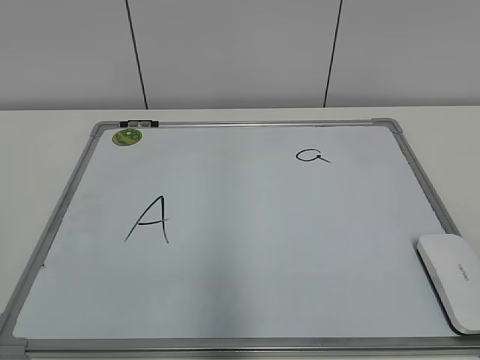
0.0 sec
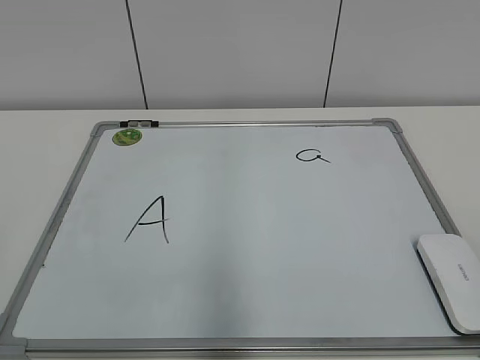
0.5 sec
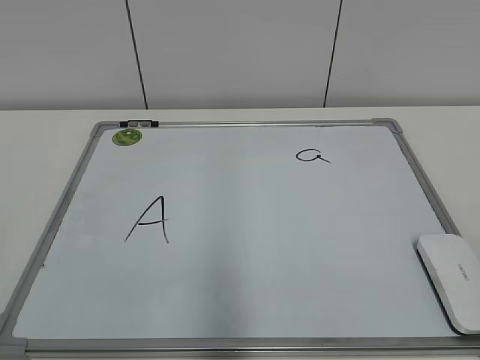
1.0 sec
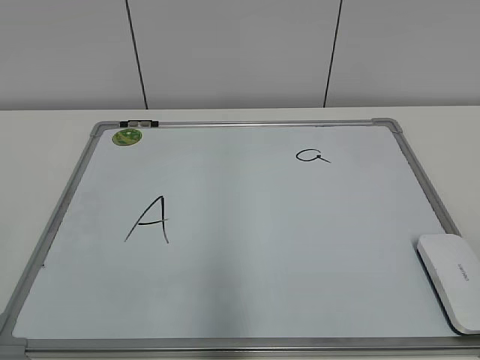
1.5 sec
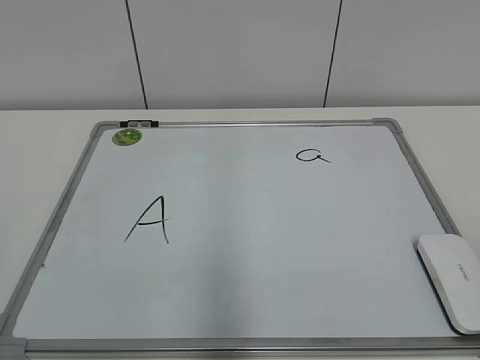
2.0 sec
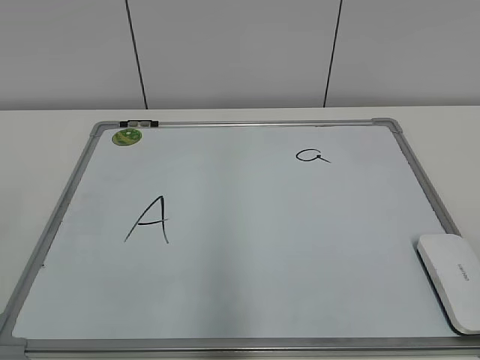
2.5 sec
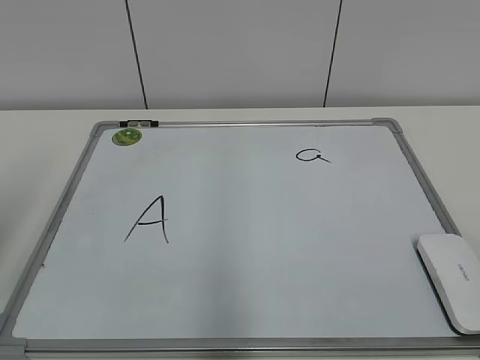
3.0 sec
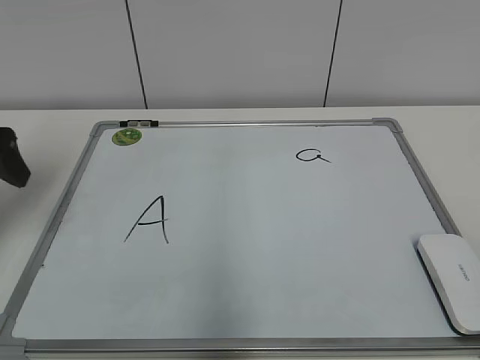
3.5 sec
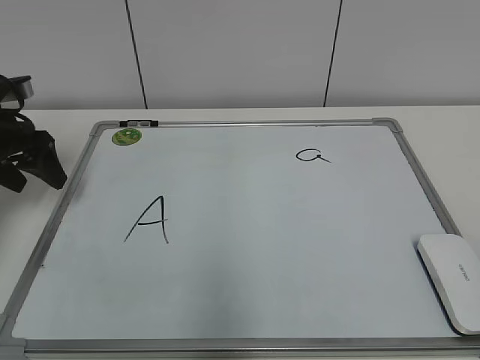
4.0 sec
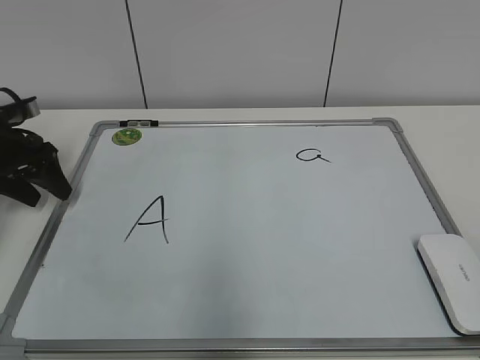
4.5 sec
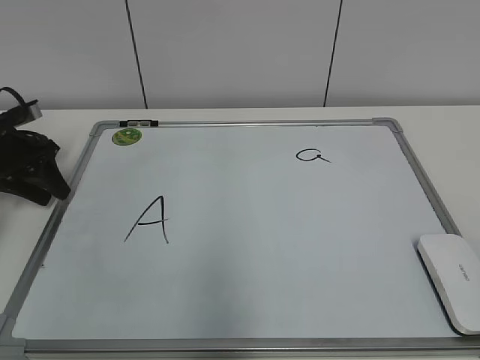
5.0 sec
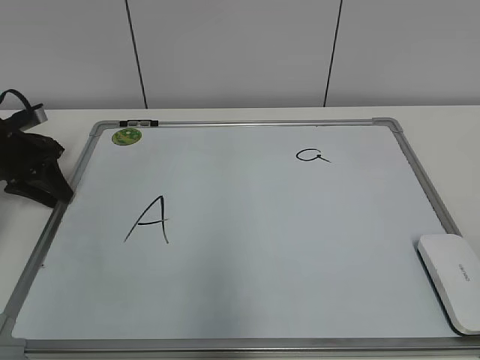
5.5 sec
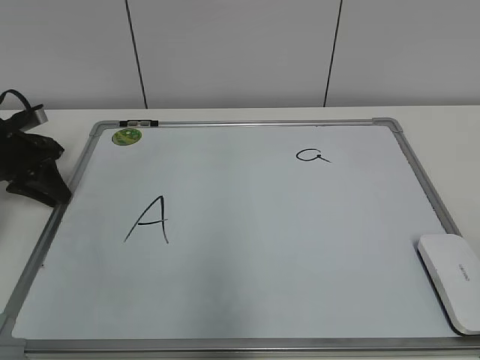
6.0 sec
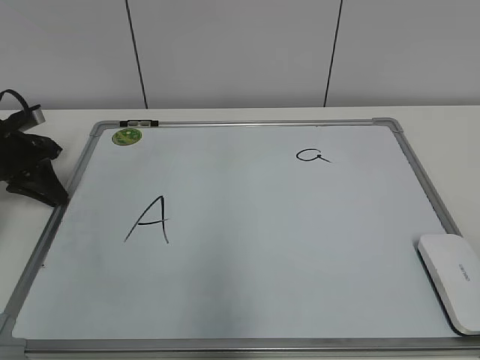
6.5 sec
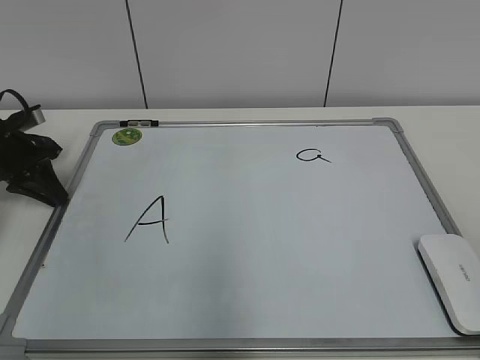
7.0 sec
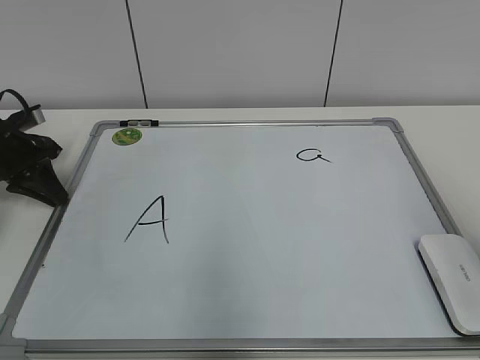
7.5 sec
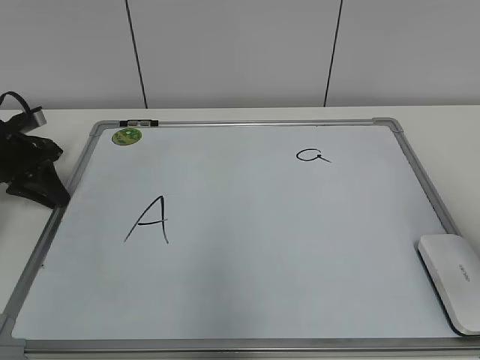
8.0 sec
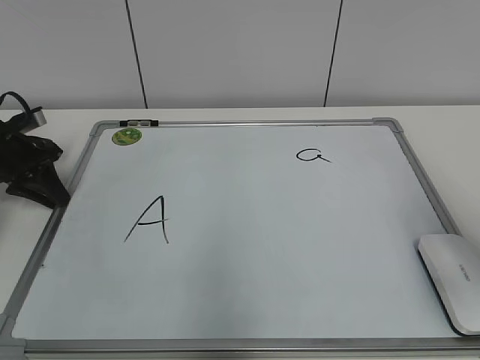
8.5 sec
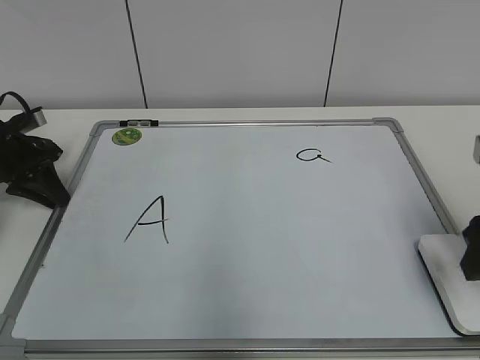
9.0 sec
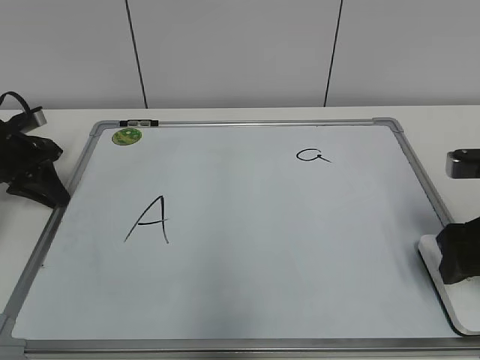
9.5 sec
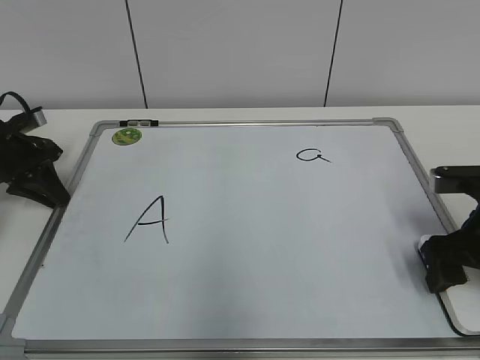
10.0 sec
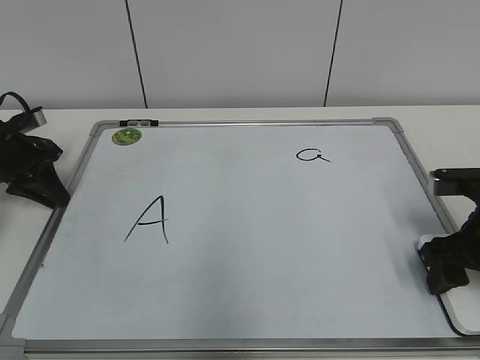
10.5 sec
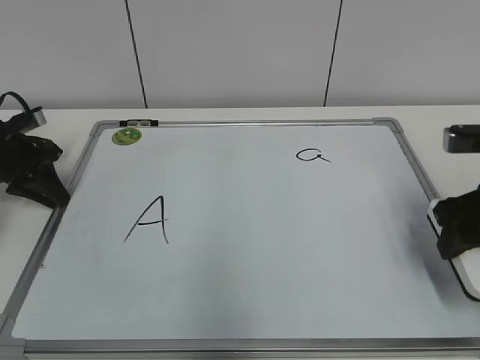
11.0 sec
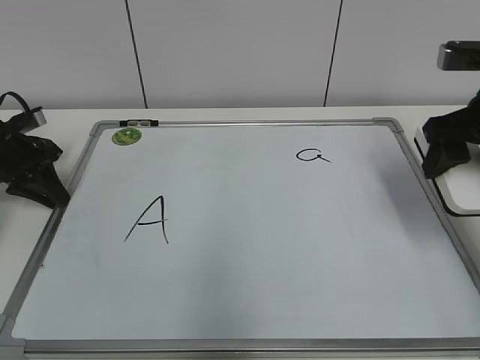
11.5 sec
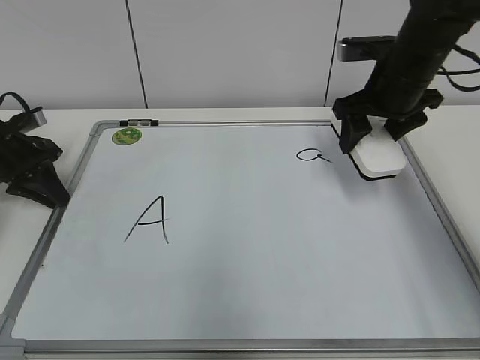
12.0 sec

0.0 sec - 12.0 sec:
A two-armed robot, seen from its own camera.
Task of the whole recording: pick up the eraser on the blackboard and erase the letter "a".
Step, 0.0 sec - 6.0 sec: Hold the drawing board steady with your left hand.
Step, 6.5 sec - 10.0 sec: Grab the eraser with your right hand.
2.0 sec - 4.0 sec: The left gripper shifts roughly 40 cm forward, and opens up.
4.0 sec - 6.0 sec: The left gripper heads downward, covering some 5 cm, and closes up.
8.0 sec - 10.0 sec: The right gripper shifts roughly 15 cm downward and forward.
10.0 sec - 12.0 sec: The right gripper shifts roughly 20 cm forward, upward and to the left, and closes its fingers.

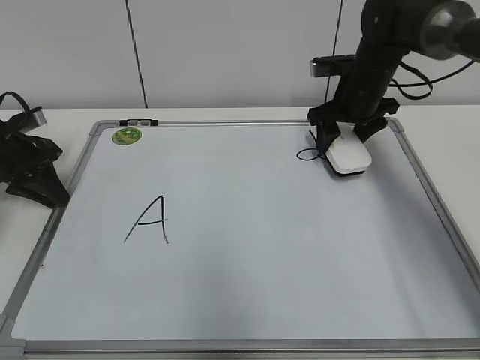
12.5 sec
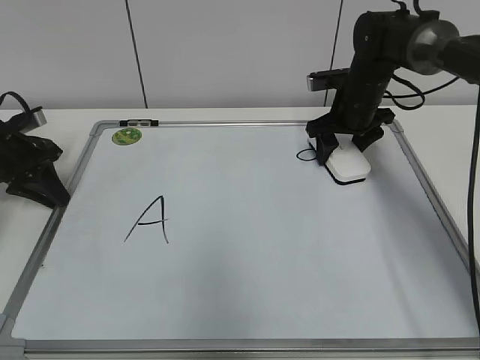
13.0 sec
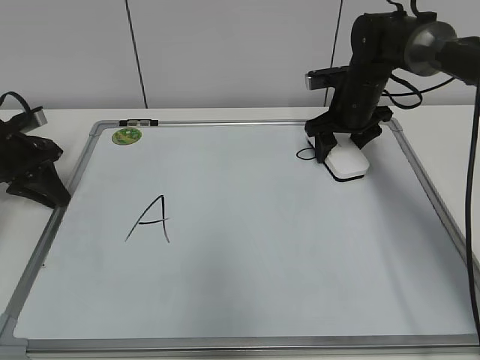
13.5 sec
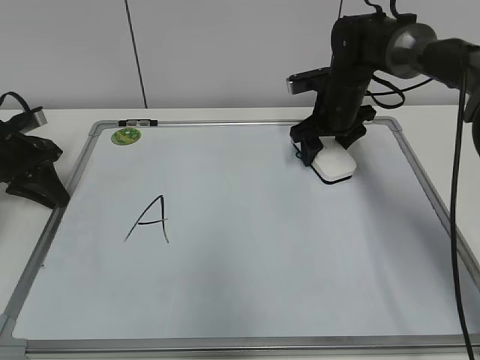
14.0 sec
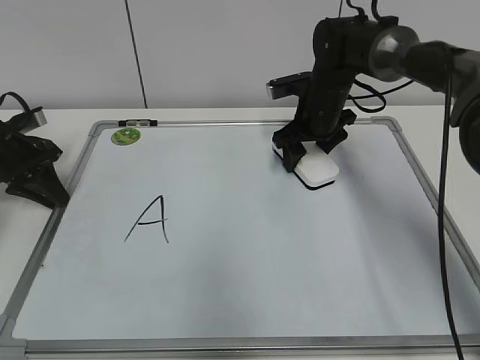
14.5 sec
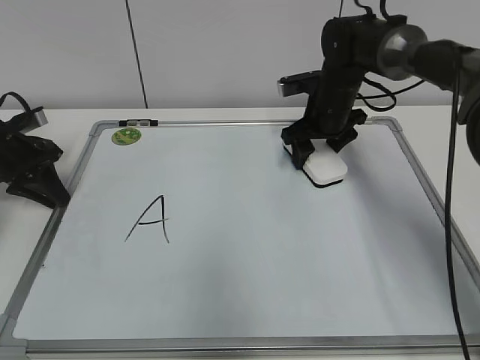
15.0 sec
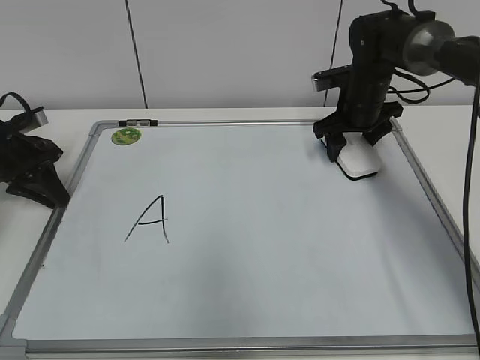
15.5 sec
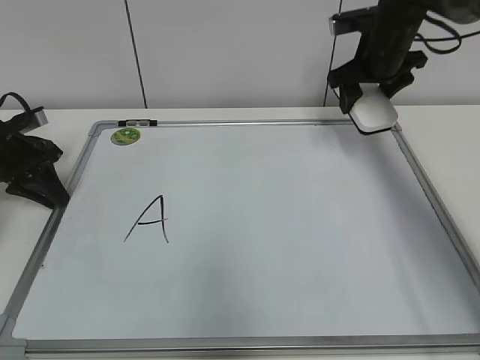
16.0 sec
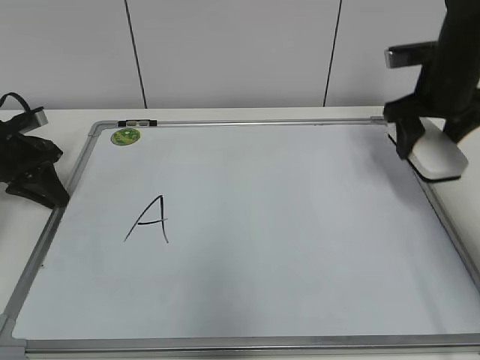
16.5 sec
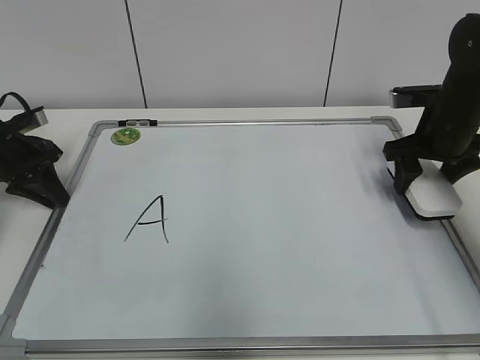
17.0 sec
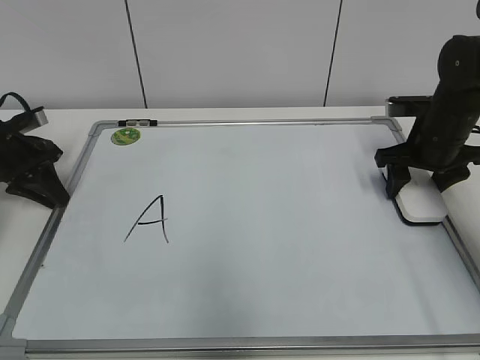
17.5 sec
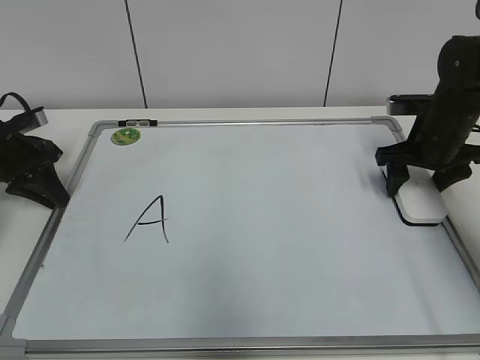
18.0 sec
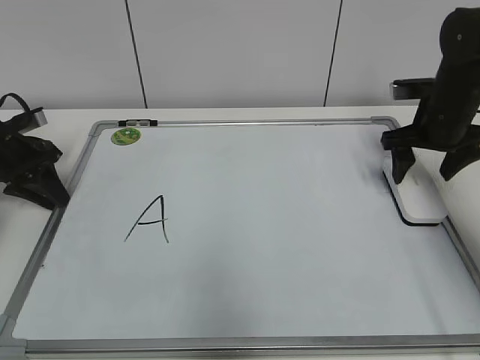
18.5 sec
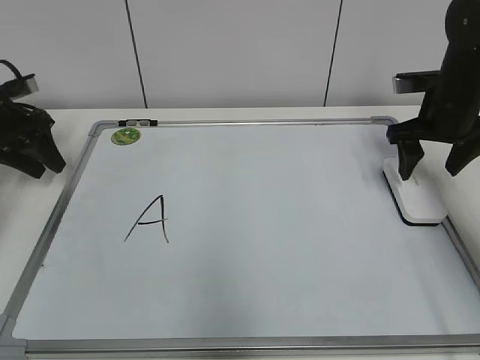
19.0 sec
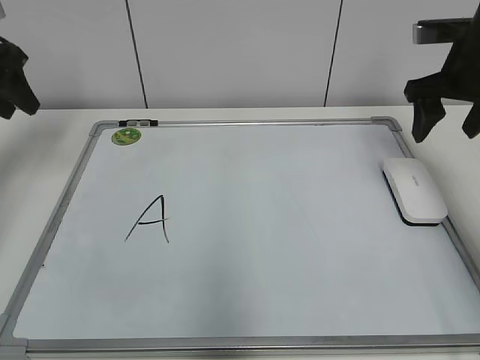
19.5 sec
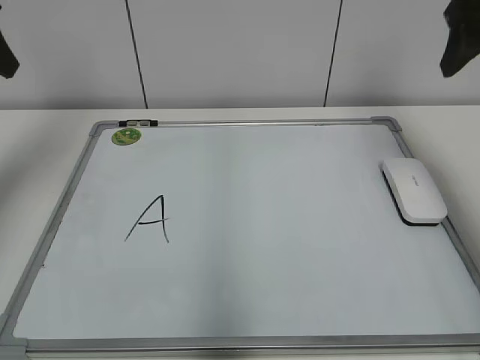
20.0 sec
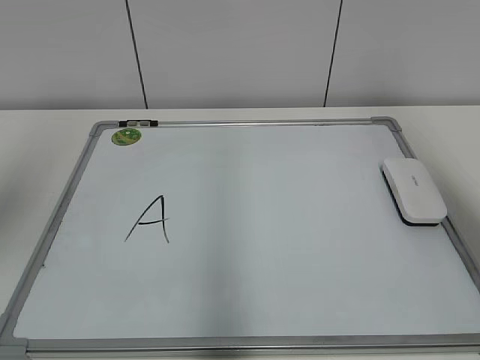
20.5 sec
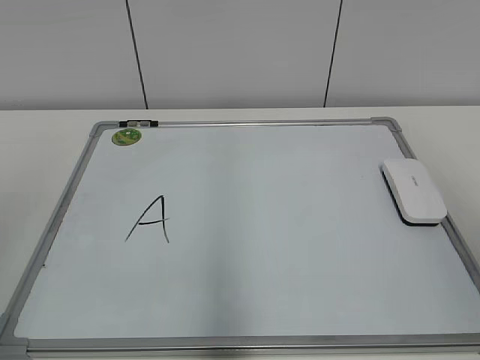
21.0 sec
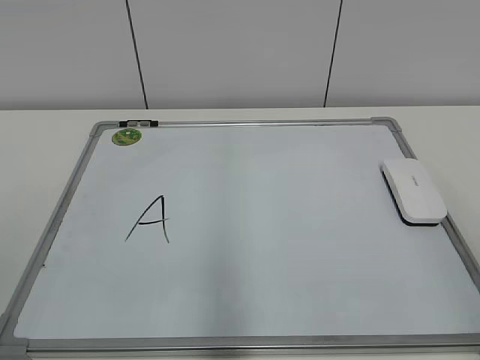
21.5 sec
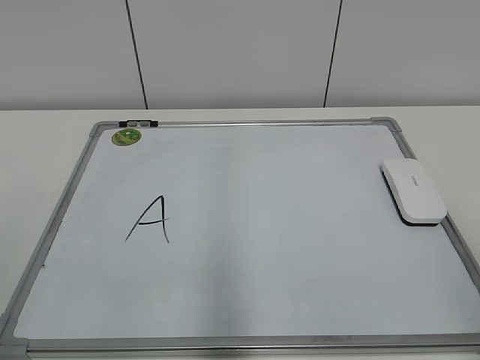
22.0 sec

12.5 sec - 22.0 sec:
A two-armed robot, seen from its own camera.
Task of the whole recording: pick up the eraser on the blackboard and erase the letter "a".
Step, 12.5 sec - 15.5 sec: Erase the letter a with your right hand.
Step, 16.0 sec - 17.5 sec: Put down the eraser with your right hand.
12.5 sec - 14.5 sec: The right gripper is displaced to the left by about 5 cm.
14.5 sec - 16.5 sec: The right gripper is displaced to the right, upward and backward by about 15 cm.
16.5 sec - 18.0 sec: The right gripper is displaced downward by about 10 cm, and opens.
18.0 sec - 20.0 sec: Both grippers travel together upward, approximately 20 cm. The left gripper opens.
20.0 sec - 22.0 sec: Both grippers travel together backward, about 30 cm.

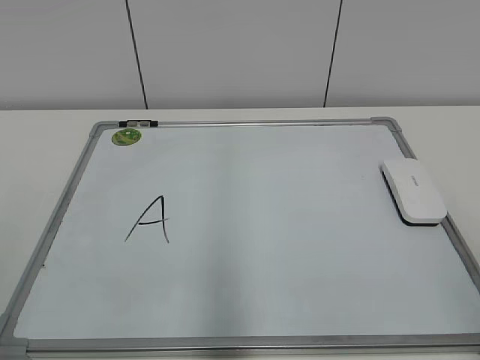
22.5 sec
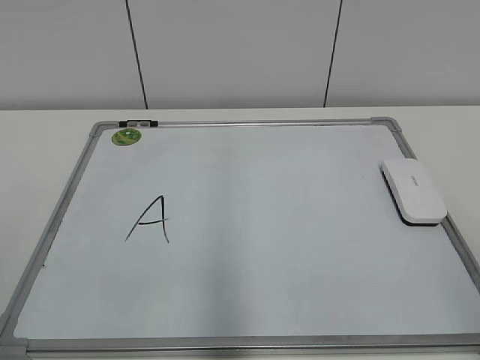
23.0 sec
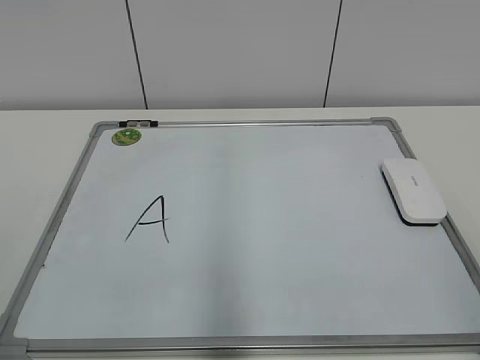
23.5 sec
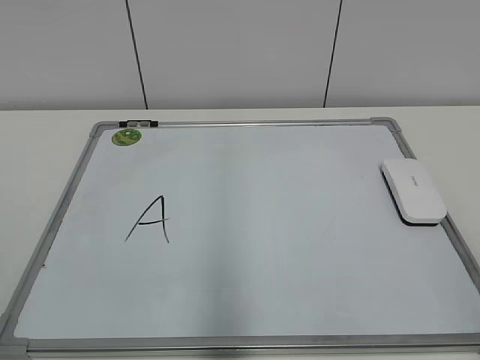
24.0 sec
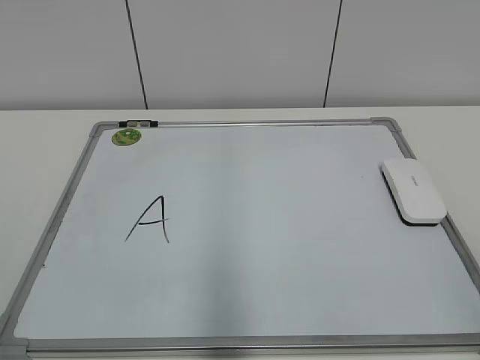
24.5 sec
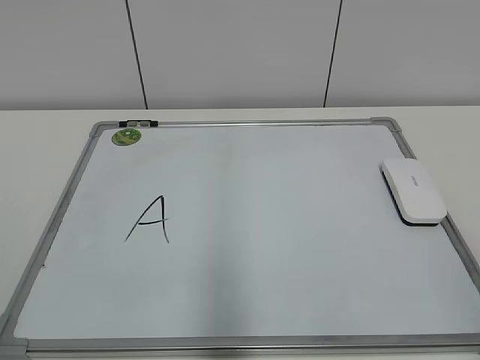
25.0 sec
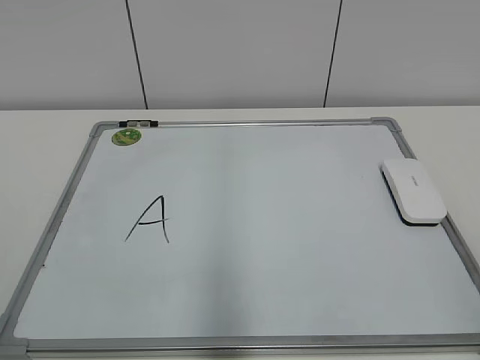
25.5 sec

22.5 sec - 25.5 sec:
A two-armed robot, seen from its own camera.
Task of the whole recording: pick up the eraser on the blackboard and erase the letter "a".
24.0 sec - 25.5 sec: Both grippers stay put.
